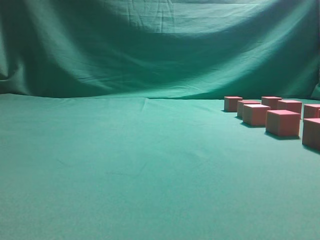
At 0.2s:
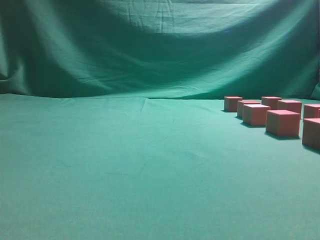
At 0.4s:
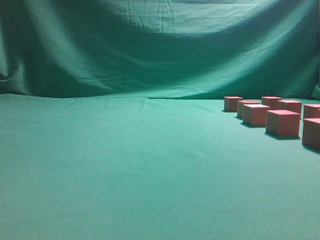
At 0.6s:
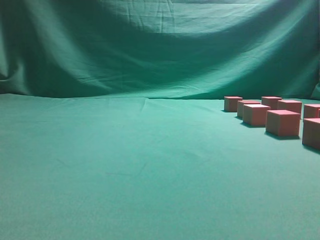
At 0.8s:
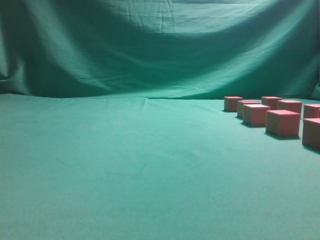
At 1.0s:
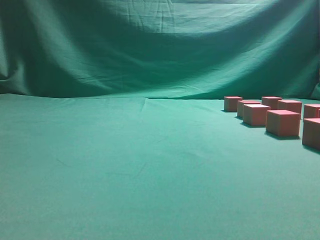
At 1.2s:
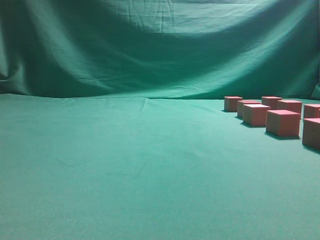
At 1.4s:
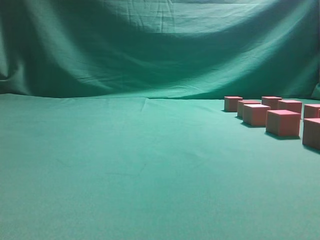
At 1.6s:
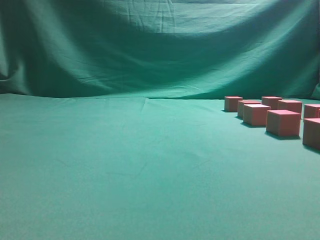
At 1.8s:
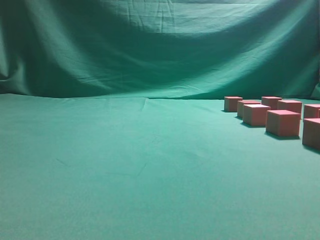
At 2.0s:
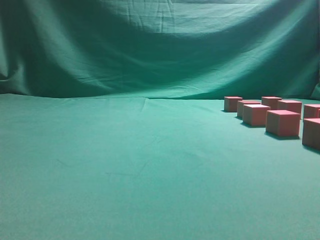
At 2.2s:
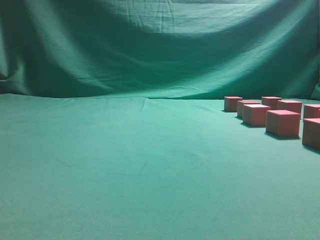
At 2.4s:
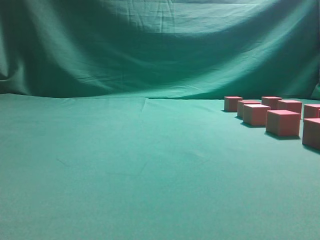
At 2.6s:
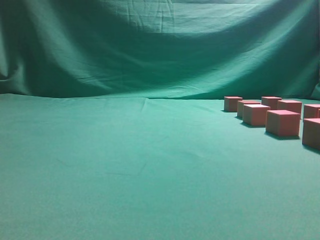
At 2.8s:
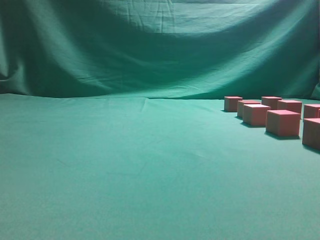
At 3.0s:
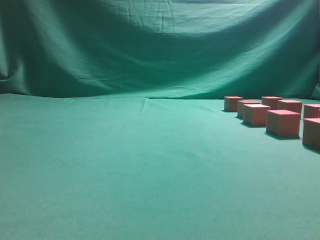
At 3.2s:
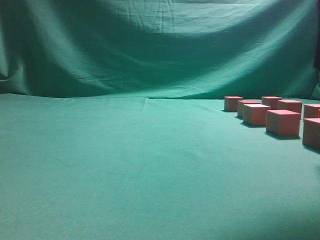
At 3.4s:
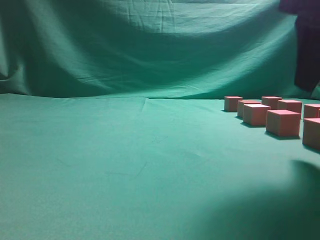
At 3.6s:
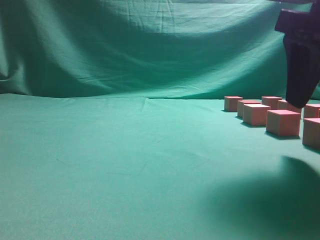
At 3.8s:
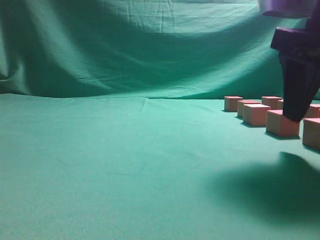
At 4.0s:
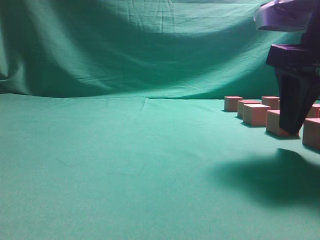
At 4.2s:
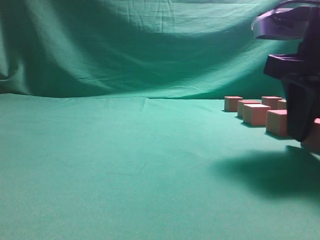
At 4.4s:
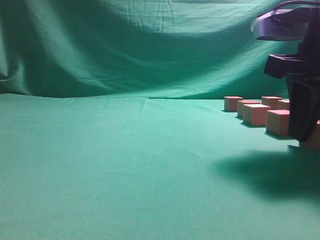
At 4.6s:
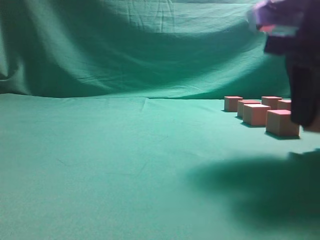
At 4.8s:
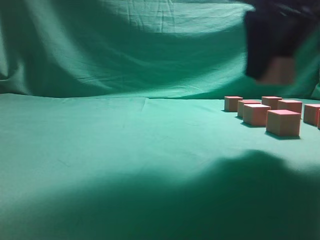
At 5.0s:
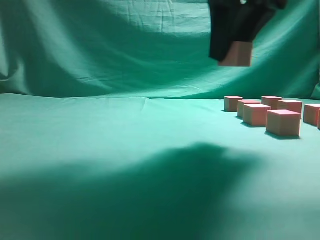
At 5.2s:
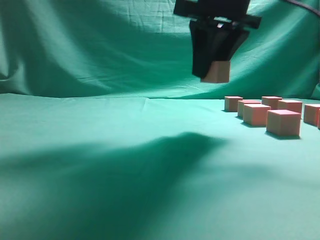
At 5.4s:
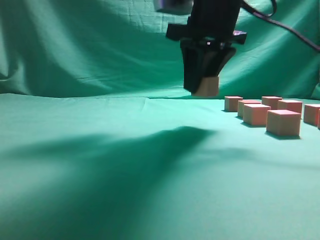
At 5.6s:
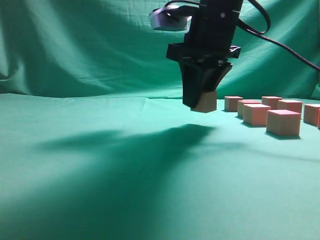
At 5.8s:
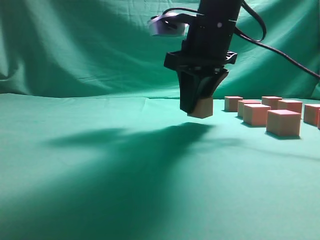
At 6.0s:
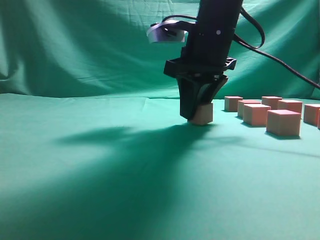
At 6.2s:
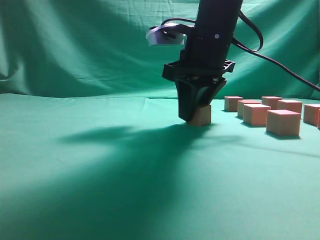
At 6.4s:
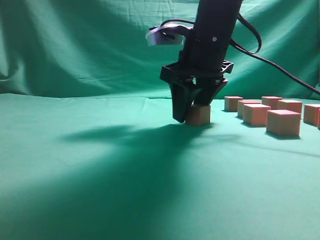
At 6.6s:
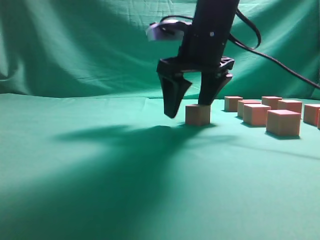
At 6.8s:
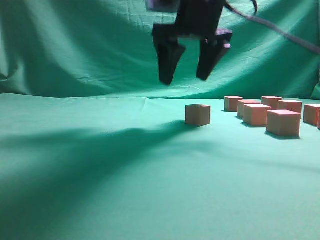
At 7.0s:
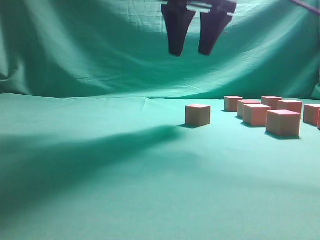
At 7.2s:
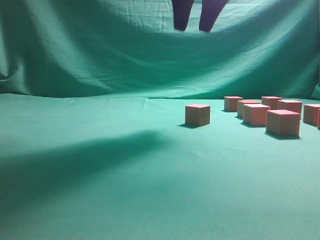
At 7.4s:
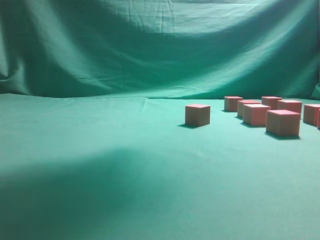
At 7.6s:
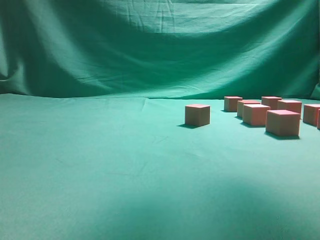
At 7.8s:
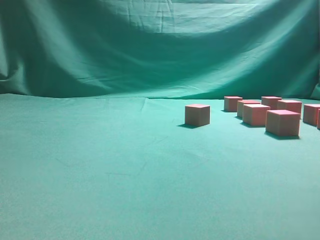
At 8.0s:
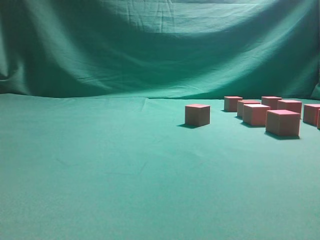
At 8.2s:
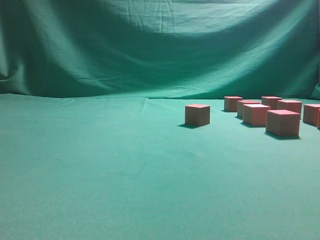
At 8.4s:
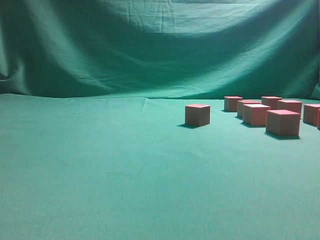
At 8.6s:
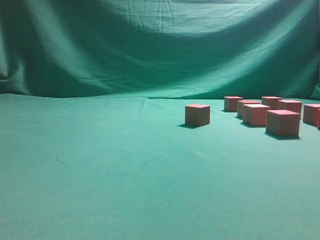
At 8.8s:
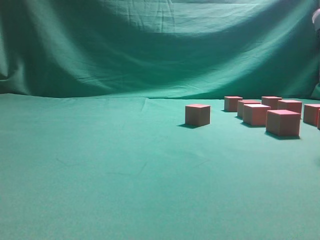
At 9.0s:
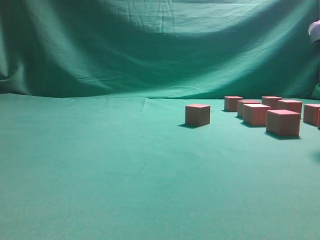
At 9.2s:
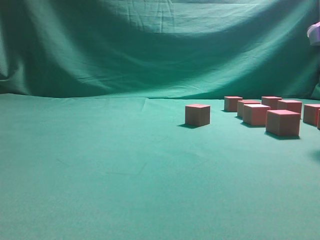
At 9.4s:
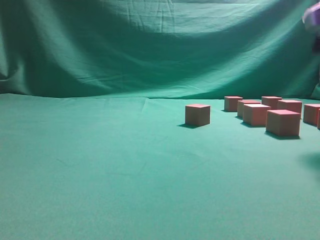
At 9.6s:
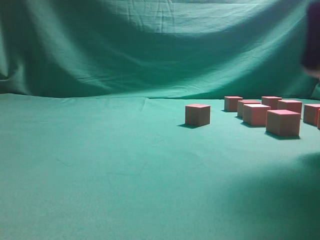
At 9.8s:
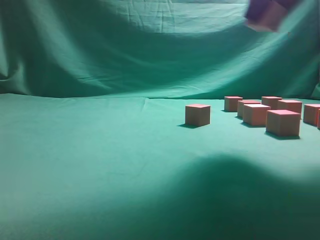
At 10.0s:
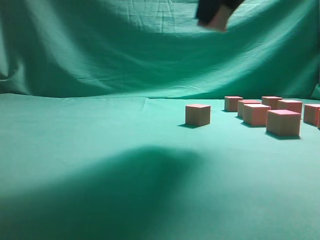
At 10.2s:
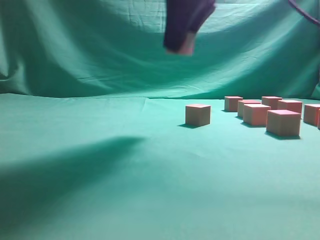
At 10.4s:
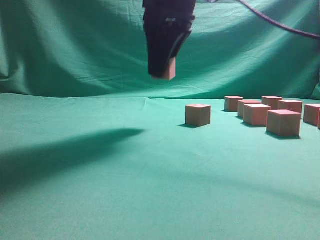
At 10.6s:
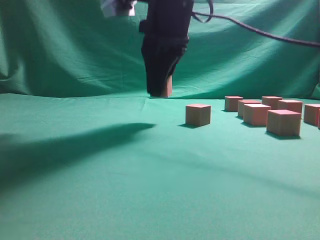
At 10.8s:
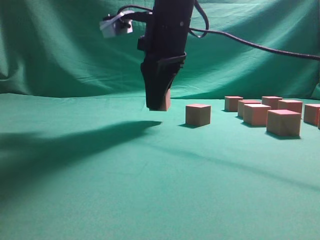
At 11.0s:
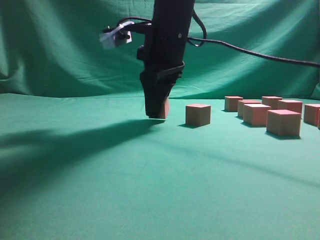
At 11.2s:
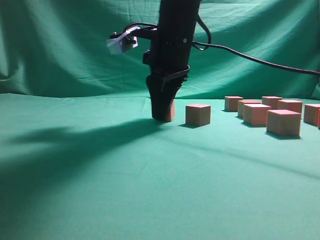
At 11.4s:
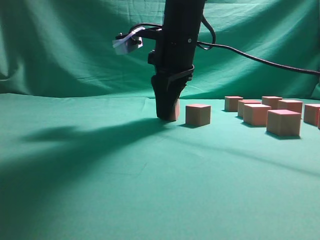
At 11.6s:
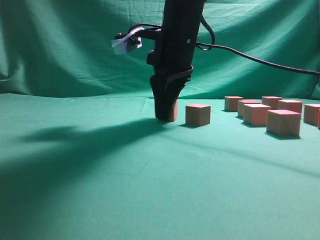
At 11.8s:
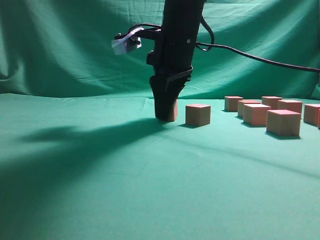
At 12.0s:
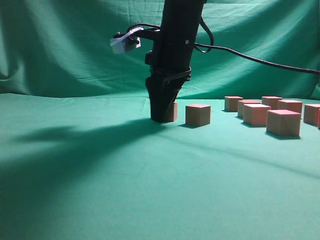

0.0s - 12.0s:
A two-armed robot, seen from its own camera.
Task of the whole recording: pick up the multiple cubes in two columns one by one and place them in another position on the table.
Step, 0.0s - 4.6s: Pick up the block on the table.
Step, 4.8s - 7.0s: Place the block at the correct position to assemble the letter S.
Step, 7.2s - 9.2s: Pick up the block on the table.
3.0s - 4.4s: The right gripper is displaced downward and forward by about 10 cm, and opens its fingers.
4.4s - 6.0s: The right gripper is displaced forward and to the left by about 15 cm.
6.0s - 7.6s: The right gripper is displaced upward by approximately 20 cm.
7.6s - 9.0s: The right gripper moves downward and to the right, approximately 25 cm.
9.0s - 10.4s: The right gripper goes some 20 cm to the left.
10.4s - 12.0s: The right gripper shifts some 10 cm downward.

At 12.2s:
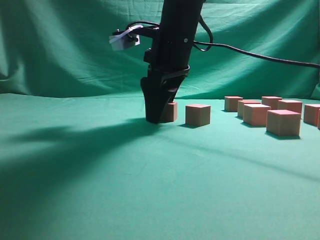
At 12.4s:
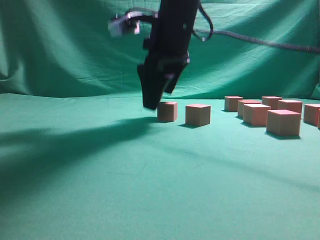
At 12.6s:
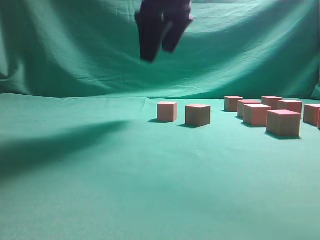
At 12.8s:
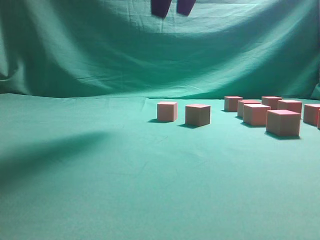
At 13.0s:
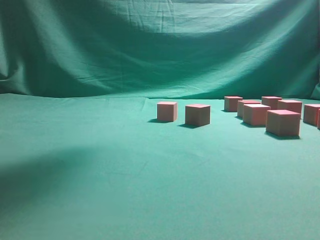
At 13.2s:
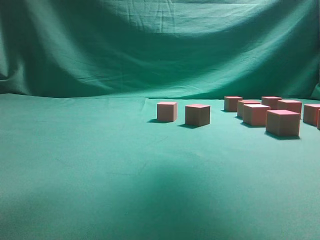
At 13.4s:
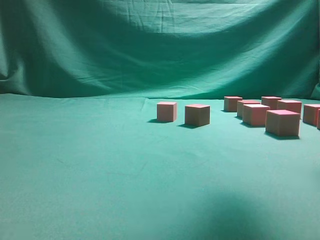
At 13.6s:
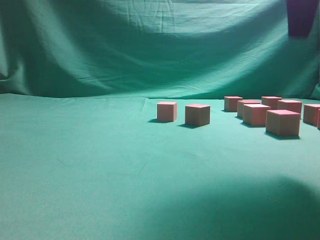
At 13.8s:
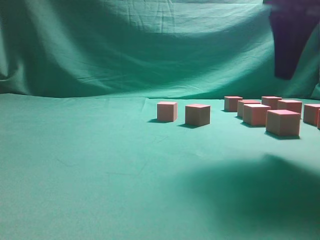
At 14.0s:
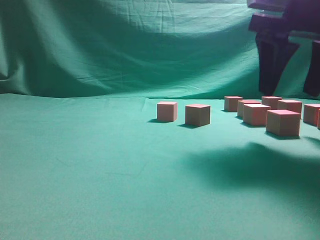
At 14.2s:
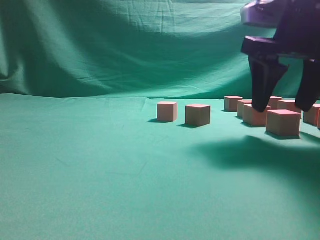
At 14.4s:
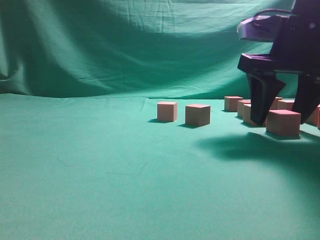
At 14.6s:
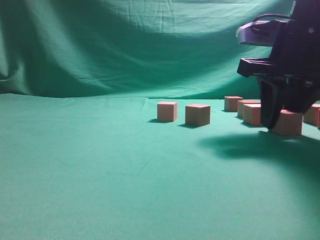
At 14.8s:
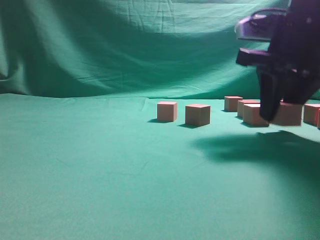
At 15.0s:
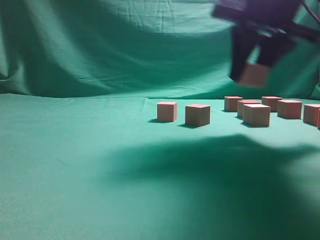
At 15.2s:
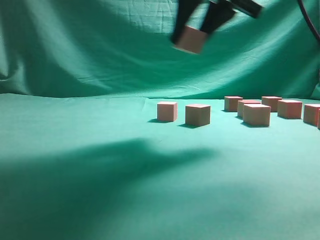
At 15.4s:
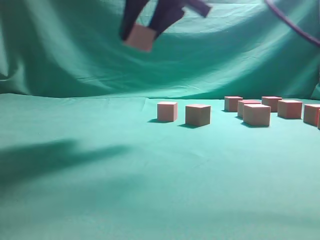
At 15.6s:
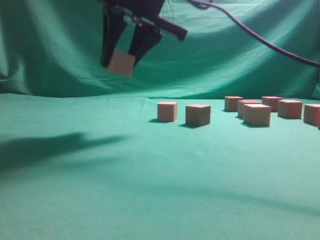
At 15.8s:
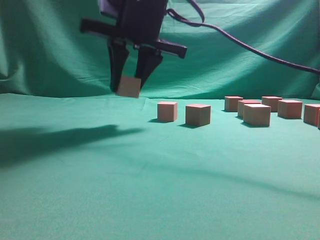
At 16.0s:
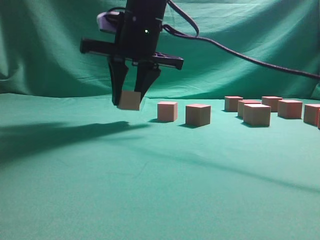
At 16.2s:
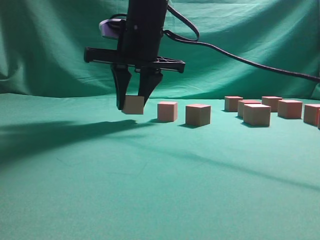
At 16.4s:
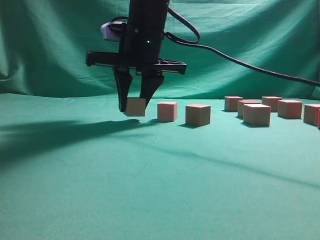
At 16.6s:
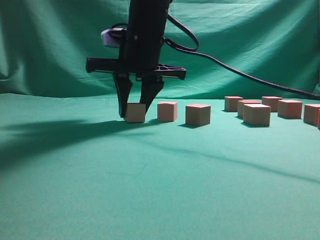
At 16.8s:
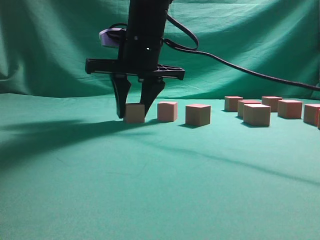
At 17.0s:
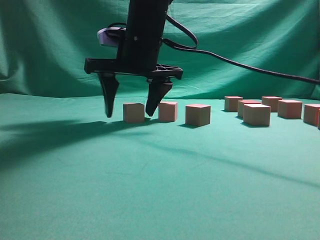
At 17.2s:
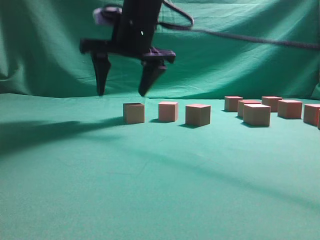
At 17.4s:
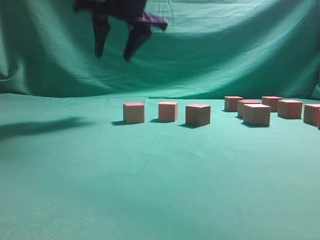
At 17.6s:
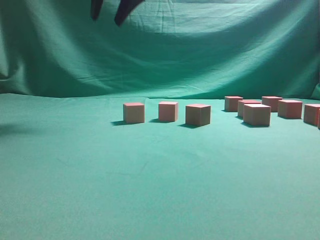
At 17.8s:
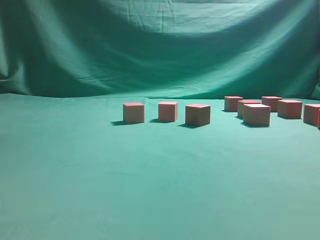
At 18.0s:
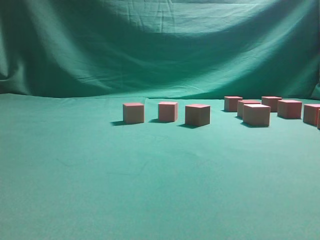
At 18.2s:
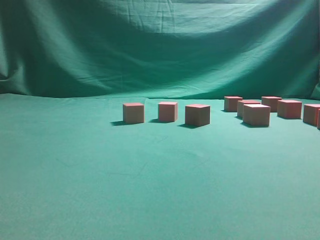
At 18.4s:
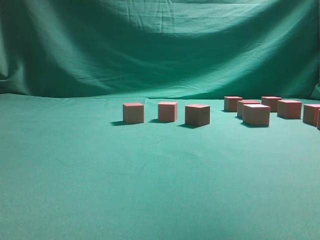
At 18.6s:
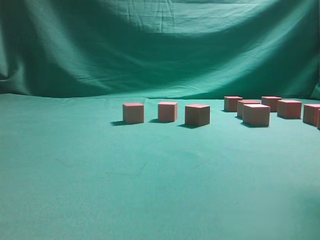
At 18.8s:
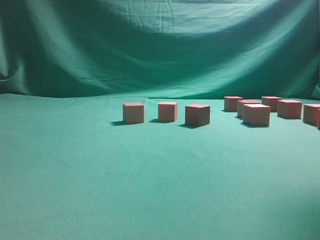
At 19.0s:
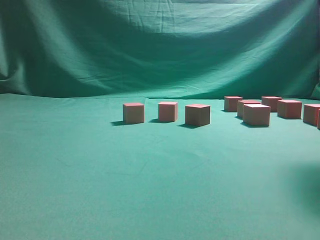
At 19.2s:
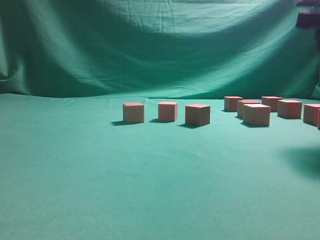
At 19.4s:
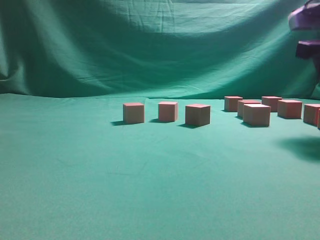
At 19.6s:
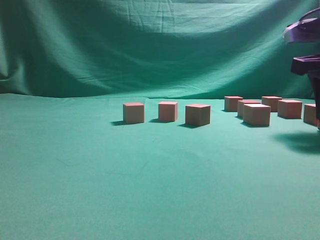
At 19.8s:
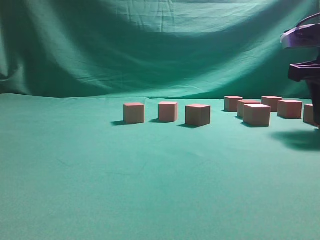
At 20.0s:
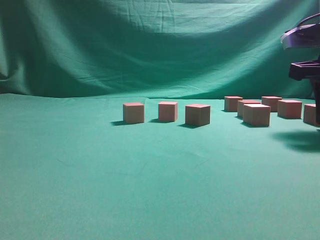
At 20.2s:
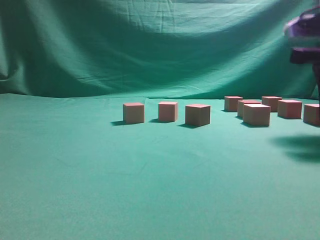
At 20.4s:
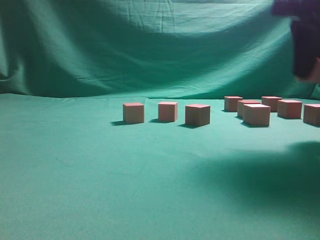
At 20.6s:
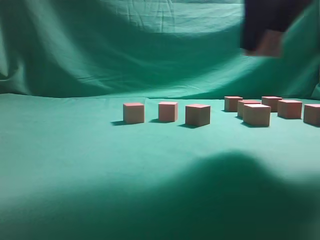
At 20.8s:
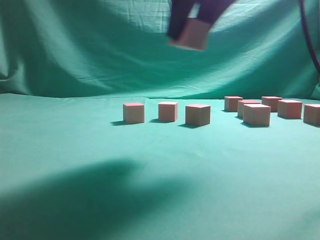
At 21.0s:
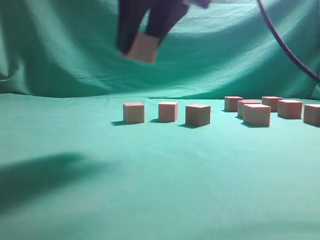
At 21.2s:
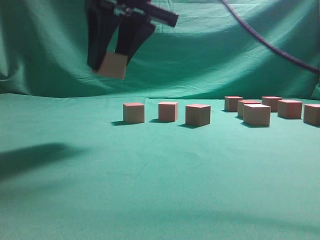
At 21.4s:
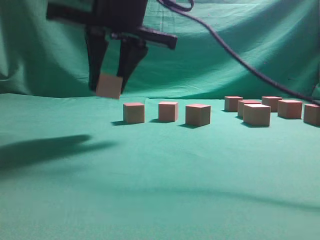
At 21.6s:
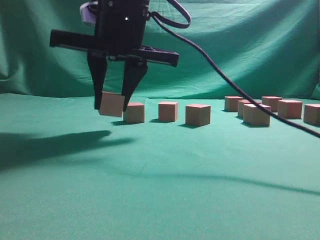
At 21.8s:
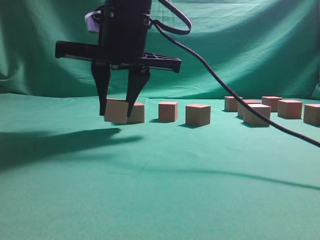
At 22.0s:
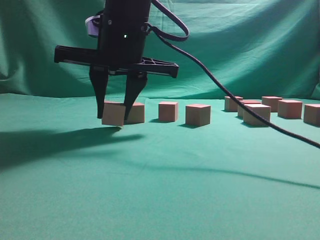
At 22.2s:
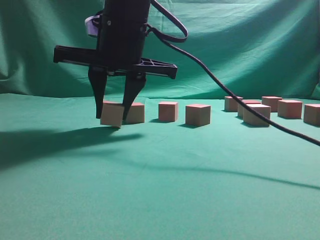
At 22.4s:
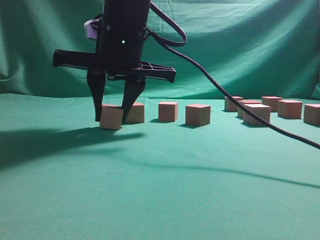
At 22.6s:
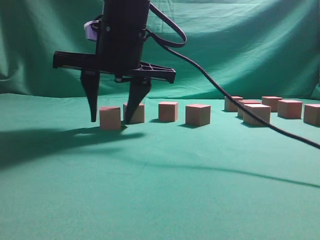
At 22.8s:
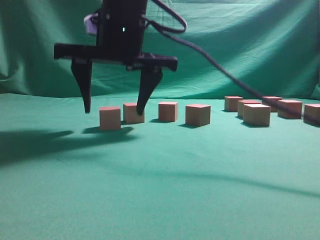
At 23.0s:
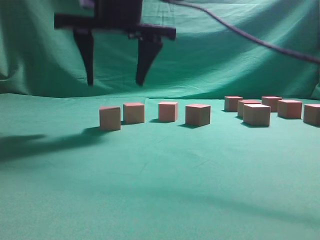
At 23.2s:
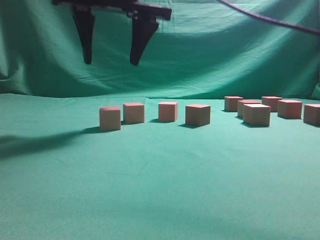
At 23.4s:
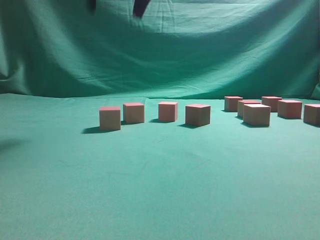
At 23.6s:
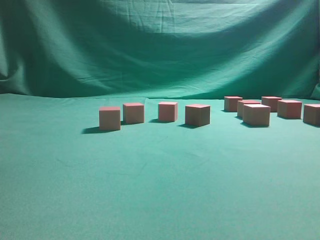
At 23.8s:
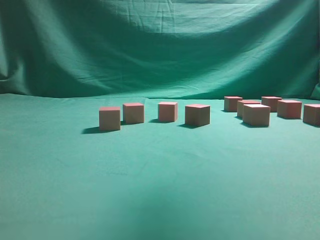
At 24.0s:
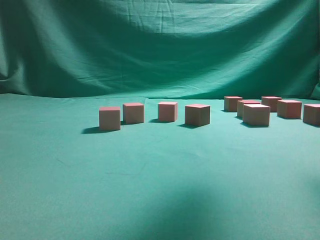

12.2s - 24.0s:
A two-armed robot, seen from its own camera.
Task of the whole recording: pick up the multiple cubes in two columns one by one and place them in another position on the table.
Step, 12.8s - 14.8s: Pick up the block on the table.
Step, 15.0s - 17.4s: Place the block at the correct position to assemble the letter S.
Step, 17.6s - 20.2s: Pick up the block on the table.
Step, 20.4s - 23.2s: Place the block at the correct position to assemble the letter S.
12.2s - 13.6s: The right gripper goes about 25 cm to the right, backward and upward.
13.6s - 15.2s: The right gripper moves to the left and forward, roughly 10 cm, reaches about 10 cm downward, then returns, and closes.
15.2s - 16.6s: The right gripper is displaced to the left, downward and forward by some 15 cm.
16.6s - 18.2s: The right gripper is displaced upward and to the right by about 35 cm.
18.2s - 19.6s: The right gripper travels downward and to the right by roughly 35 cm.
19.6s - 21.0s: The right gripper goes roughly 25 cm to the left.
21.0s - 22.6s: The right gripper heads downward, to the left and forward, covering some 15 cm.
22.6s - 24.0s: The right gripper moves to the right and upward, approximately 30 cm.
